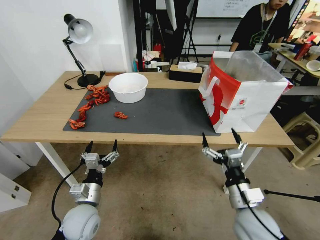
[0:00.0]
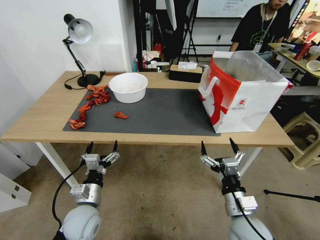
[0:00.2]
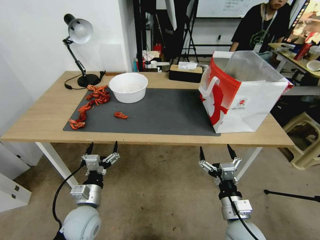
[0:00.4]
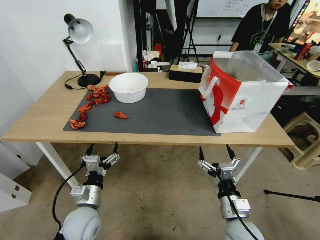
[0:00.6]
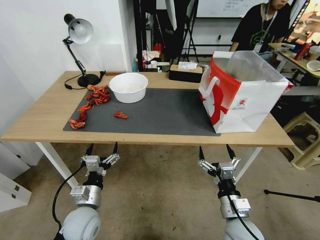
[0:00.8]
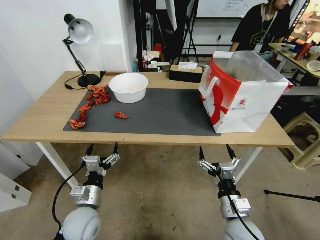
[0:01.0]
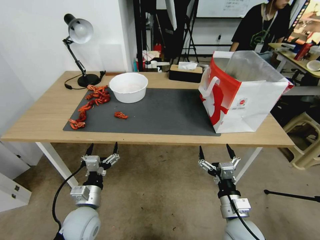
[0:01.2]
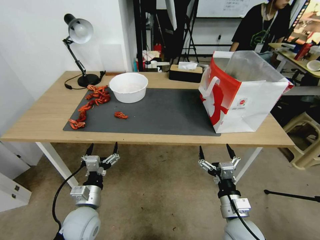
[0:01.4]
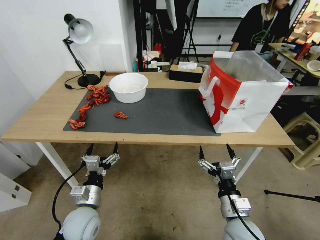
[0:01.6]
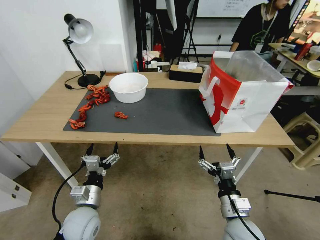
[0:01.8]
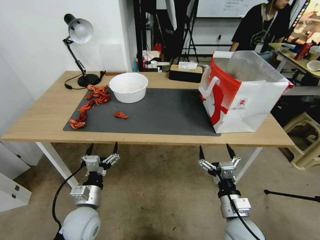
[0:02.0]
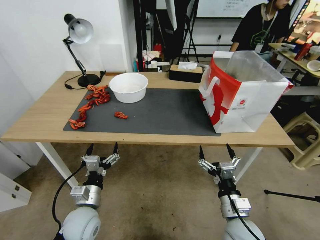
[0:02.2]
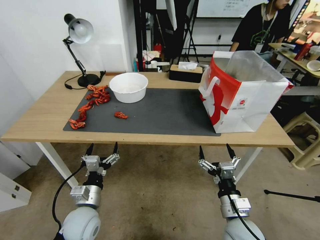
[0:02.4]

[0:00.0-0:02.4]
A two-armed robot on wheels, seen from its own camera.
Task of the whole recording: Close the takeout container lid, then place the container into the takeout bag.
0:00.0 to 0:01.2: The right gripper goes some 5 cm downward.
0:01.2 to 0:02.4: Both grippers stay about where they are.
